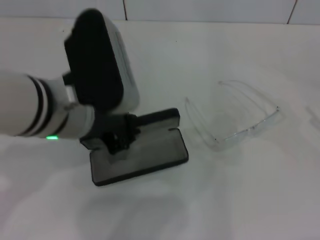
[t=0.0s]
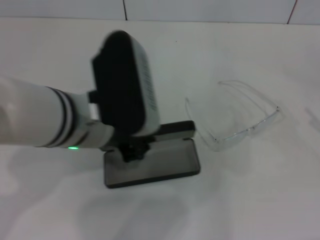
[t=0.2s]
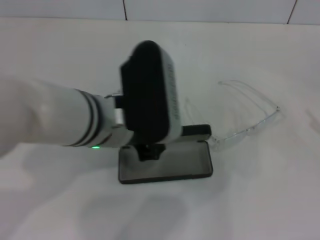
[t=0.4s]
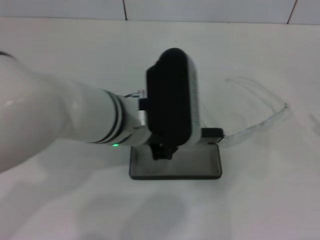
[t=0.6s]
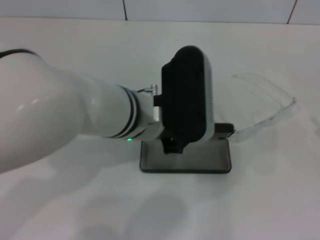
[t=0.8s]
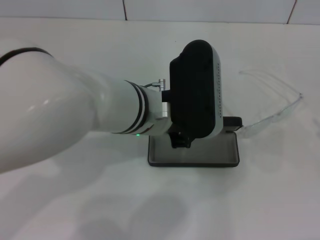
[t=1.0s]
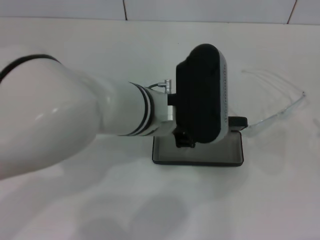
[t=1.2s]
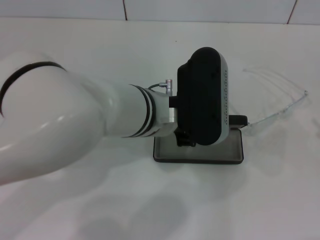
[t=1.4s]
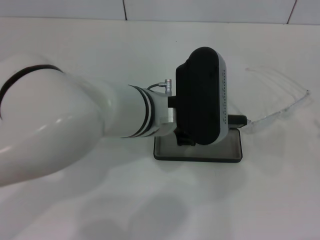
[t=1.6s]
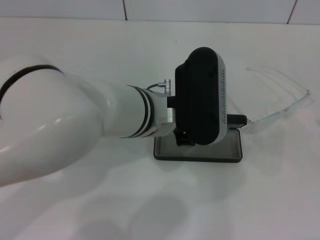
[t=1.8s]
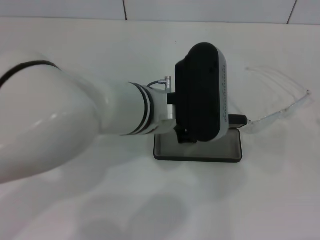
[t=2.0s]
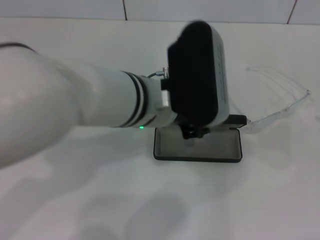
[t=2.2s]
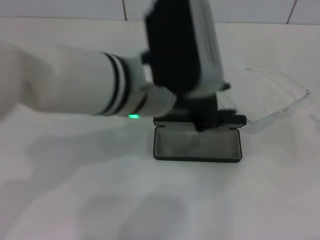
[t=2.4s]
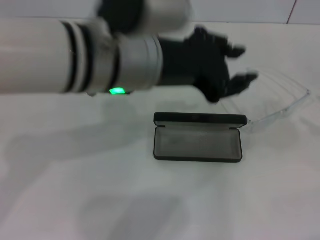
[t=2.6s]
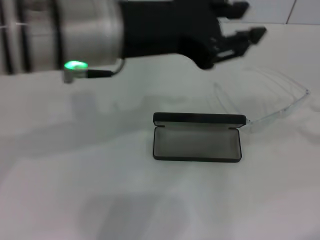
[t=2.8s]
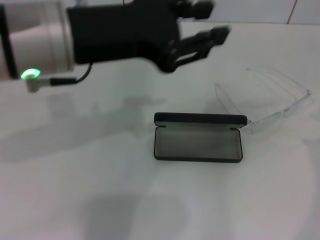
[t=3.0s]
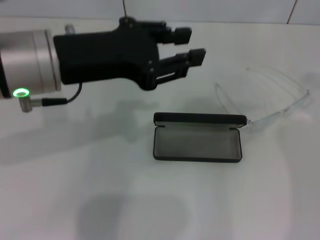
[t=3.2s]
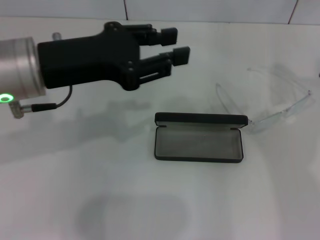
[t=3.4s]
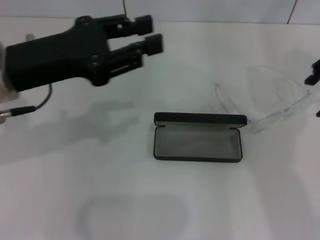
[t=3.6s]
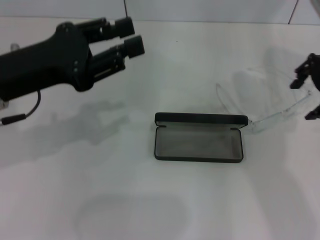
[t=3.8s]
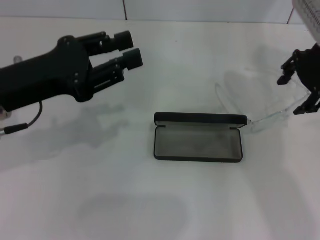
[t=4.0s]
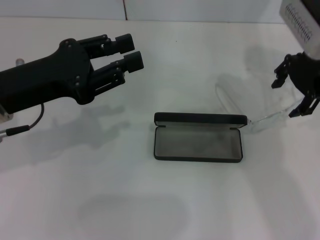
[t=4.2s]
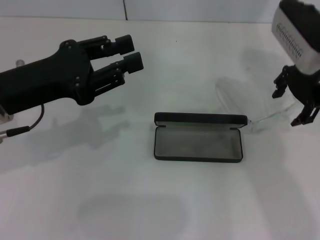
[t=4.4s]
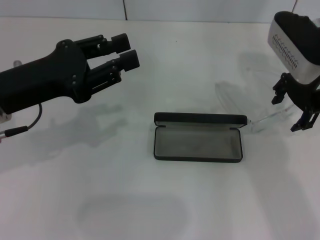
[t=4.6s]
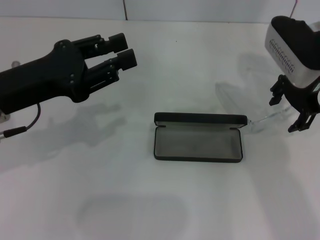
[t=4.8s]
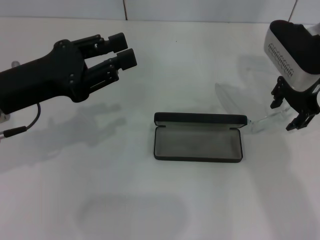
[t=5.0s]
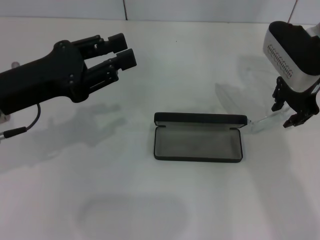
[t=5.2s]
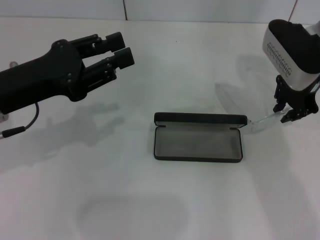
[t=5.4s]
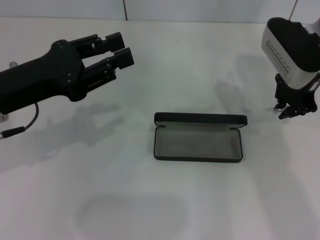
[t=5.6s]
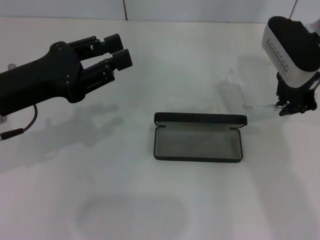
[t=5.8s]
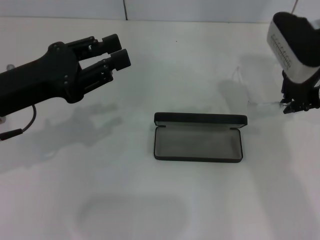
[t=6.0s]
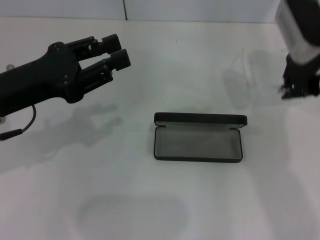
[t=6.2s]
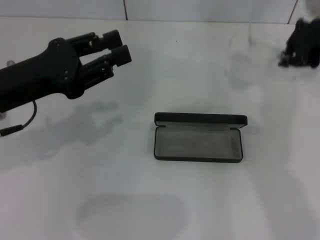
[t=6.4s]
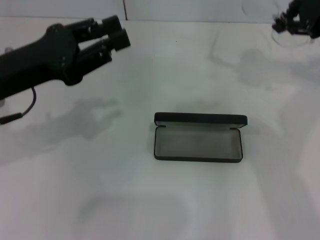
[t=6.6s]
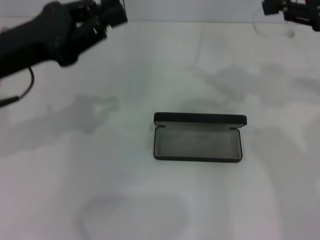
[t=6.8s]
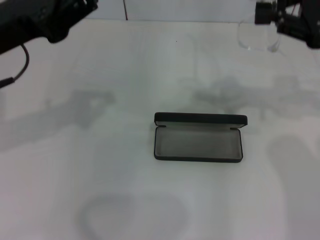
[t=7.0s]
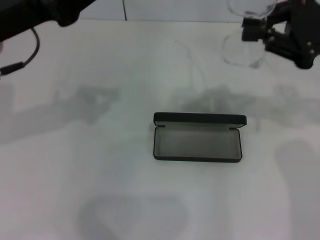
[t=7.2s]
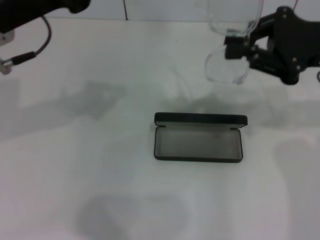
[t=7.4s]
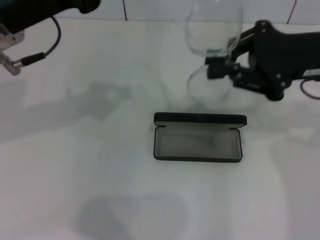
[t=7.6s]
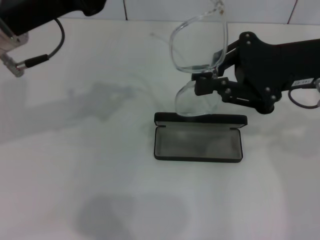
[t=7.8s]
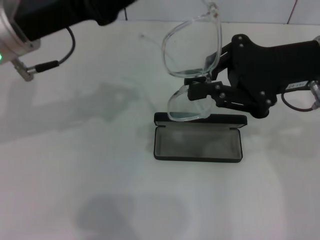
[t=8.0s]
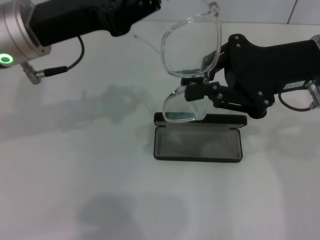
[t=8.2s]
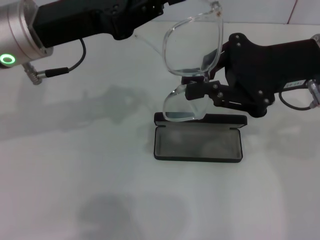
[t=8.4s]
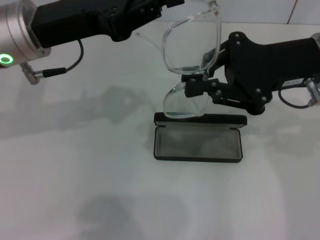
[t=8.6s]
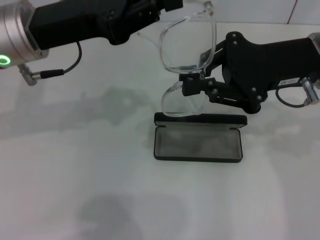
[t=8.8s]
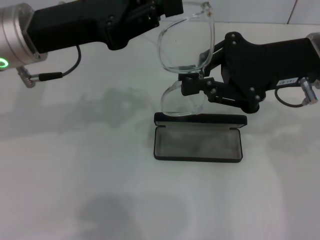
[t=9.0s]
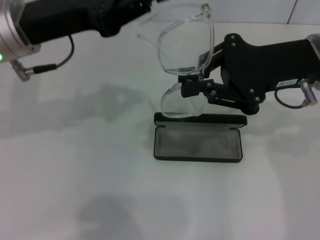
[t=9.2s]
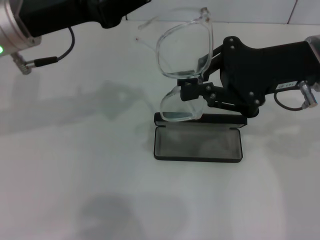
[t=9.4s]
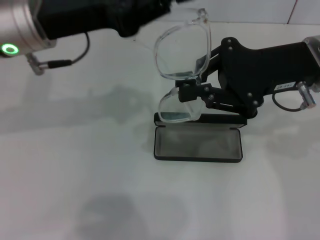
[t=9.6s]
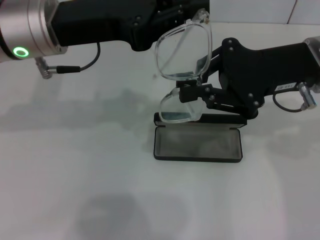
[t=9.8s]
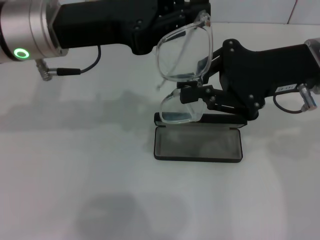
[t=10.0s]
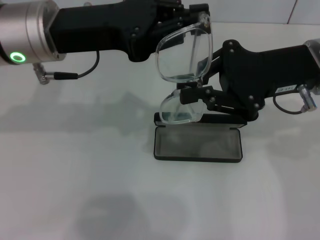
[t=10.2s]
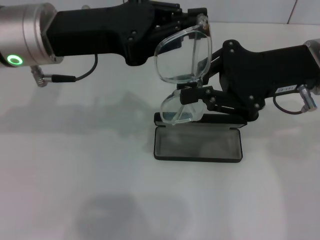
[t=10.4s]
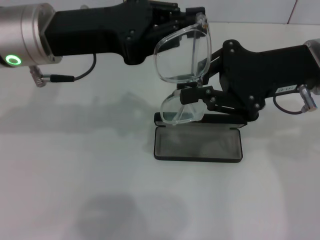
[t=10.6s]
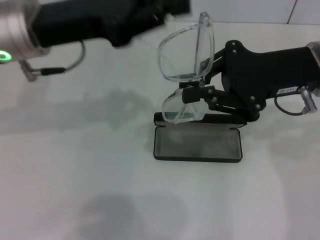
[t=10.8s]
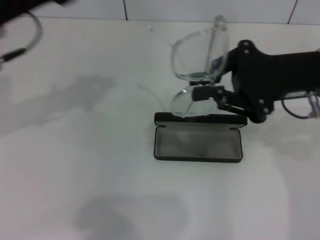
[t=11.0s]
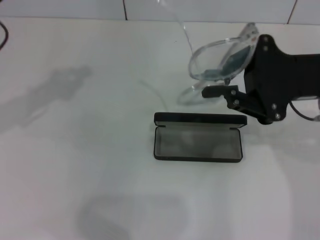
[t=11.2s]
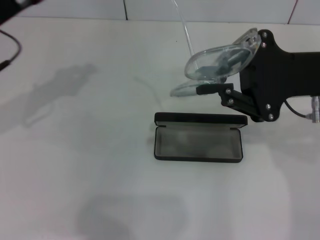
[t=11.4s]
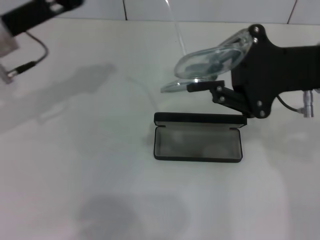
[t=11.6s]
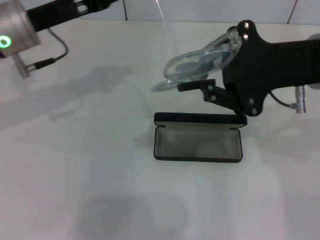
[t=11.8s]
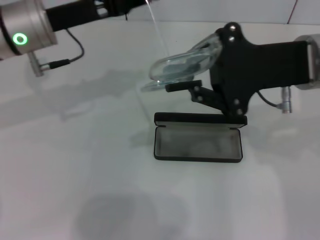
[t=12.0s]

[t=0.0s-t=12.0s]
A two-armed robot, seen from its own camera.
Step, t=0.0s to t=2.0s: Place the glasses case in the center of the table with your left hand.
Step, t=2.2s to t=5.6s: Grab the eyeglass frame with your right hand.
t=0.0s to t=1.6s: The left gripper is displaced to the right by approximately 10 cm.
t=1.6s to t=3.0s: The right gripper goes about 20 cm forward and upward. The left gripper travels to the left and upward by roughly 15 cm.
t=3.0s to t=4.4s: The right gripper moves to the left and forward, roughly 20 cm, while the left gripper goes approximately 10 cm downward and to the left.
t=4.4s to t=6.0s: The right gripper closes its fingers.
t=6.0s to t=7.6s: The left gripper goes some 5 cm upward; the right gripper moves backward, roughly 10 cm, and reaches roughly 10 cm upward, then returns.
t=7.6s to t=10.4s: The grippers move only a little.
t=10.4s to t=12.0s: The left gripper moves roughly 10 cm to the left and comes back.

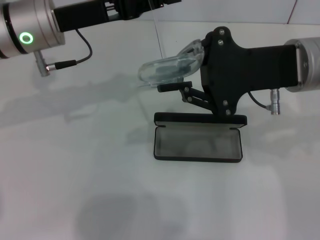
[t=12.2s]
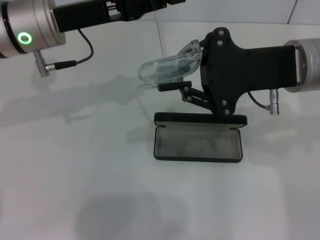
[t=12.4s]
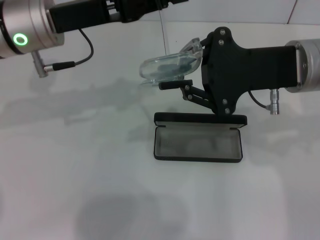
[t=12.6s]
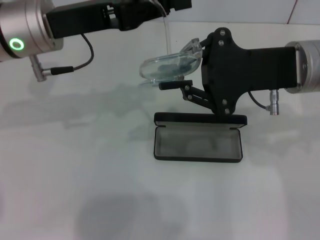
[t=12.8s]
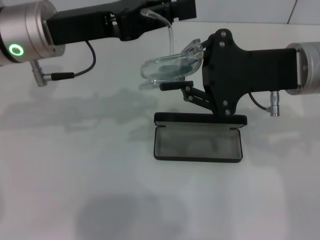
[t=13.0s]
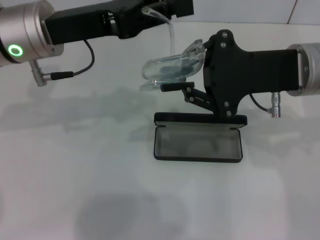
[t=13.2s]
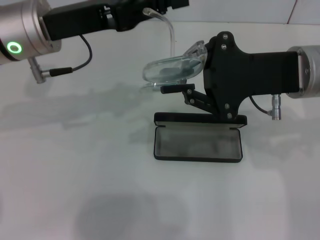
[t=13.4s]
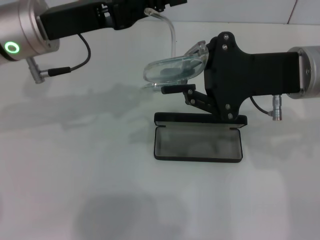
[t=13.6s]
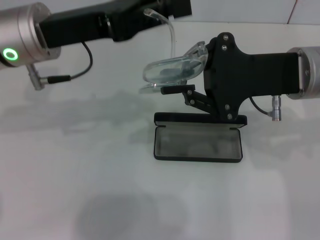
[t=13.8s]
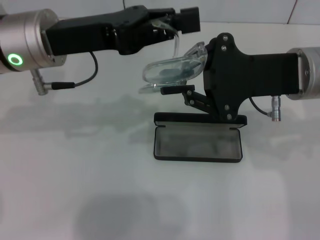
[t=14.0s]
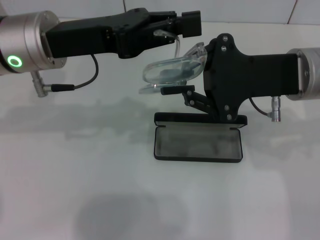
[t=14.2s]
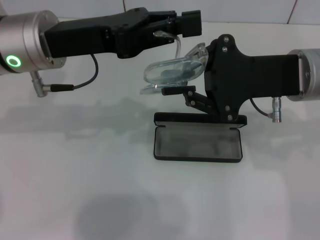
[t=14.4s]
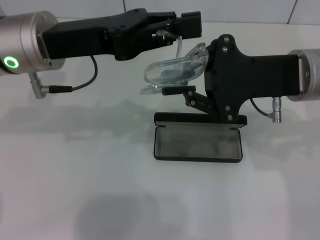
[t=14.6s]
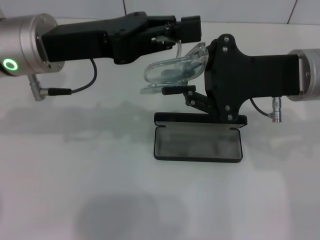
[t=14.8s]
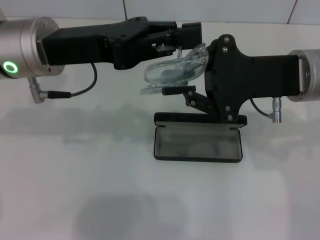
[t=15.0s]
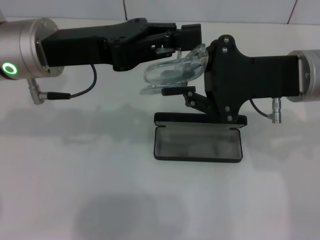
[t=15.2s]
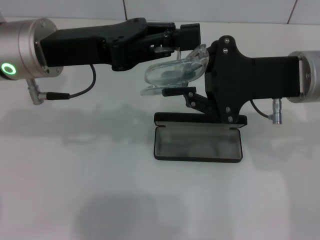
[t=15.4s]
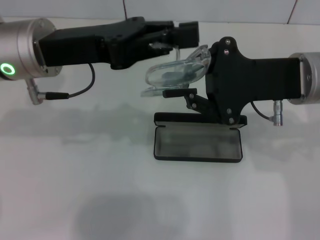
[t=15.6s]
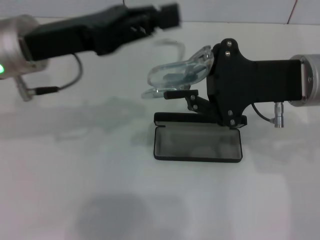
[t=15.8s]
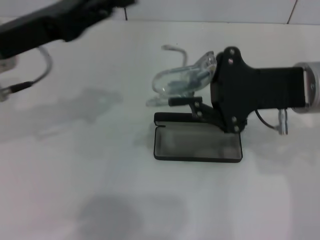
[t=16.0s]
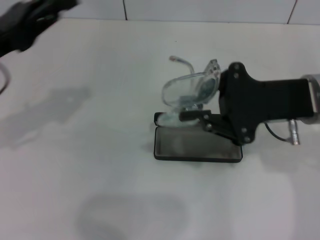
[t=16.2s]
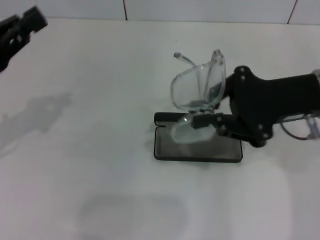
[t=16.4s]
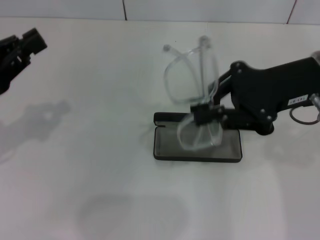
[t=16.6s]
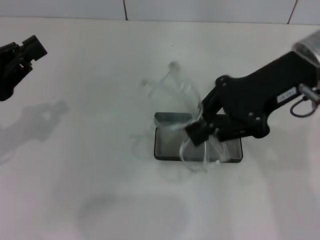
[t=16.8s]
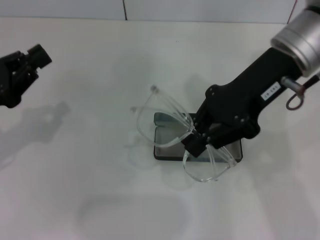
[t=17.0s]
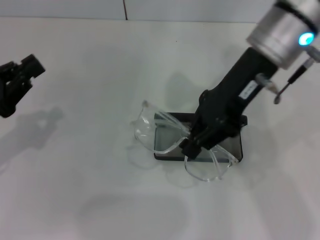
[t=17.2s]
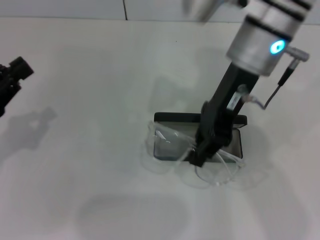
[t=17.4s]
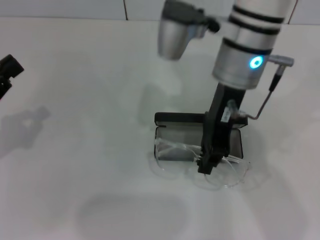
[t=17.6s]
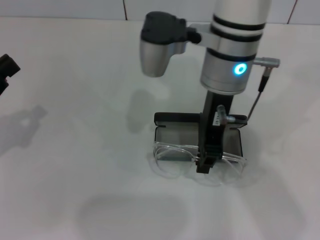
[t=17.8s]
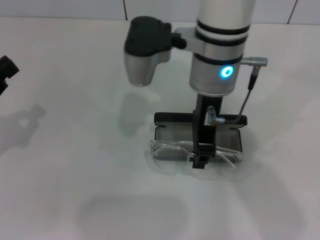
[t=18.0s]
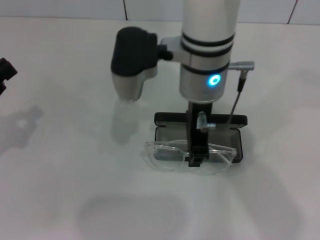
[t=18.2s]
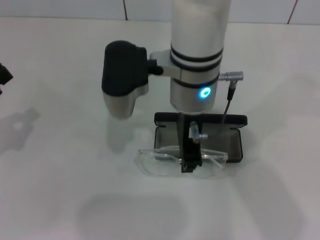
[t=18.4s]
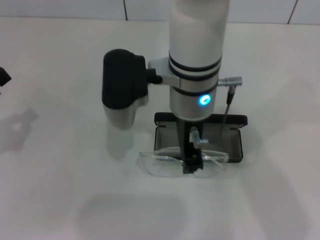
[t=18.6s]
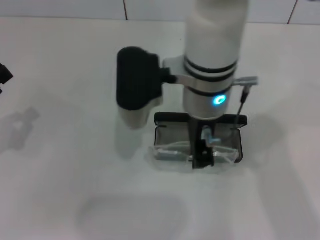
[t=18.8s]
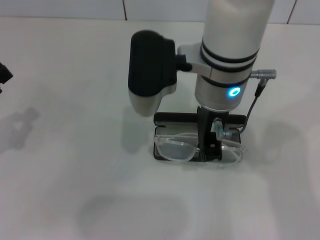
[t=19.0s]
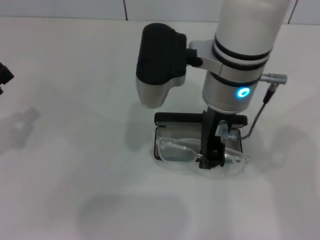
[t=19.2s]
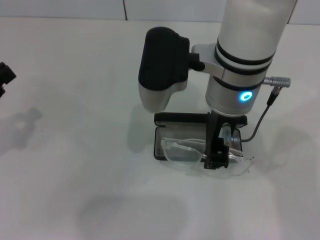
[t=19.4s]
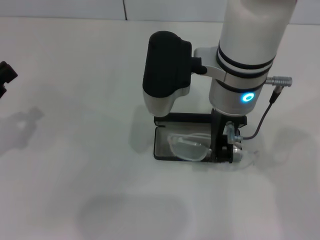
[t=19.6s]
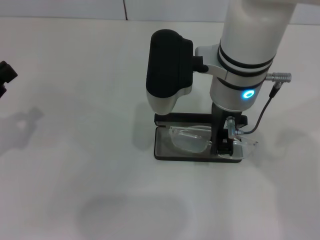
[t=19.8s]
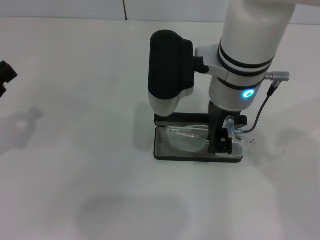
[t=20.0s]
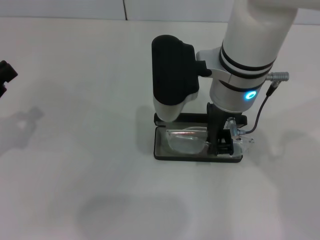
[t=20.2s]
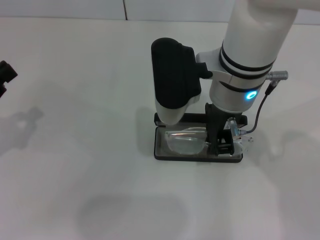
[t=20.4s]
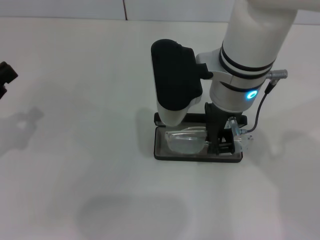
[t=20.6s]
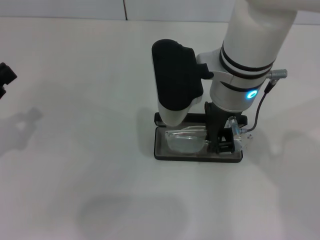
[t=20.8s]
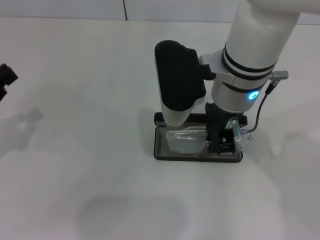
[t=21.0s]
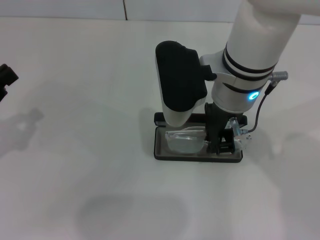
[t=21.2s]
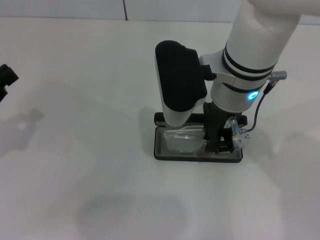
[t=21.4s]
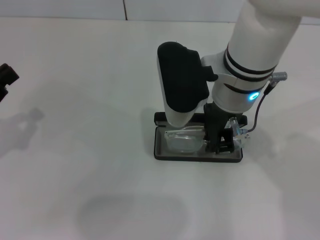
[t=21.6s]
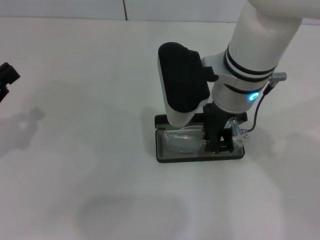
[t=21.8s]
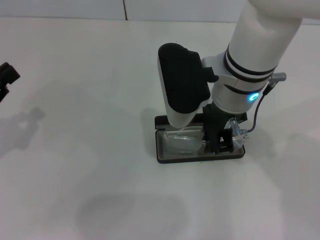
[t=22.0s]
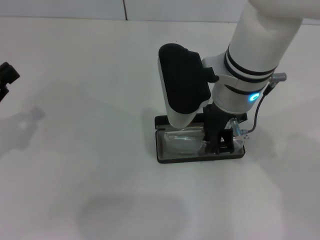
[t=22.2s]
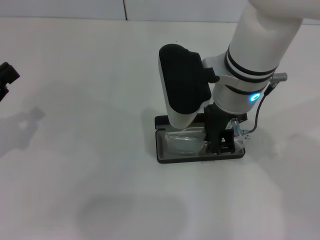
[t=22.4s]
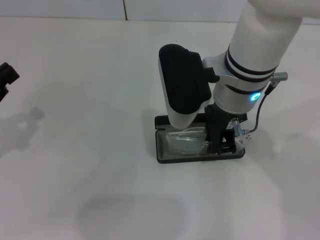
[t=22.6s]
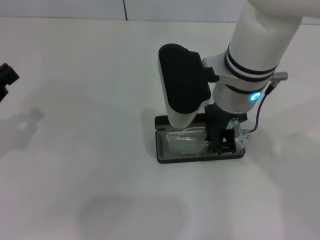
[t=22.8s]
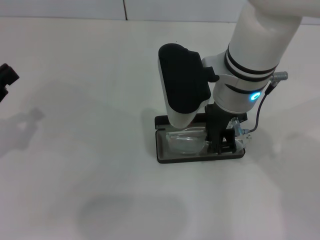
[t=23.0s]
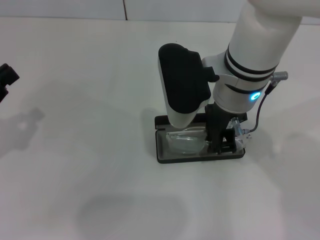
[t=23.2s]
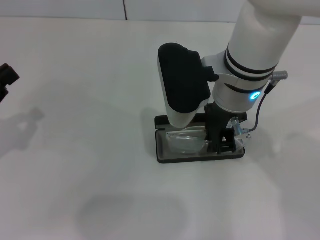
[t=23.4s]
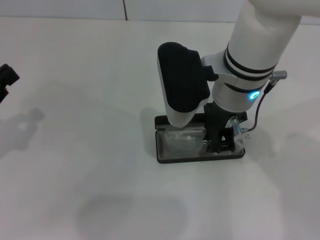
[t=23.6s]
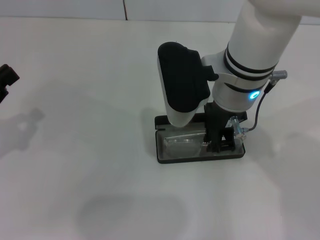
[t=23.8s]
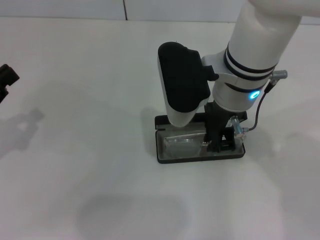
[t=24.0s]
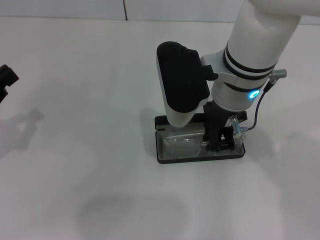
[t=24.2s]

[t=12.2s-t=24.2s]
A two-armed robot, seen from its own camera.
Step, t=12.2s to t=15.6s: Fold the frame with your left hand.
t=12.2s to t=13.8s: The grippers move only a little.
t=13.8s to t=15.2s: The grippers move only a little.
t=15.2s to t=16.6s: The left gripper goes roughly 15 cm to the left, backward and downward.
t=16.6s to t=18.2s: The left gripper shifts by roughly 5 cm, while the right gripper is displaced to the left by some 20 cm.
t=19.8s to t=21.2s: The grippers stay close to where they were, moving slightly.
t=21.2s to t=24.2s: Neither gripper changes place.
